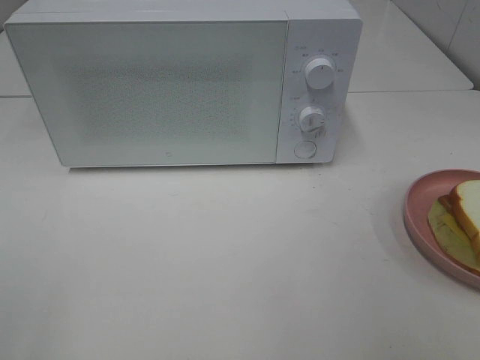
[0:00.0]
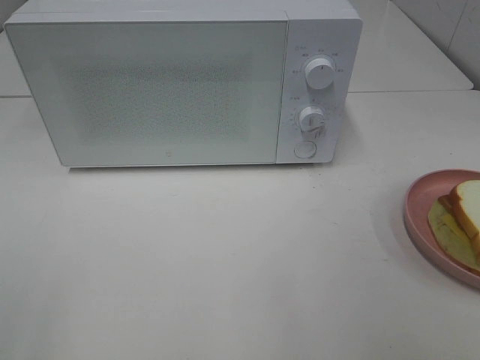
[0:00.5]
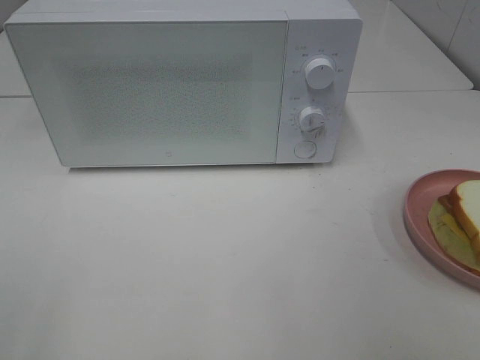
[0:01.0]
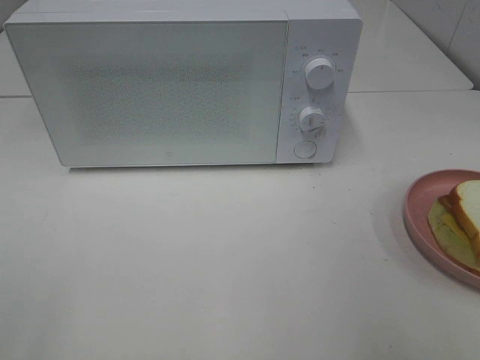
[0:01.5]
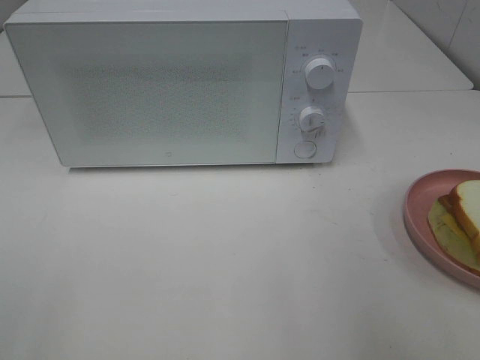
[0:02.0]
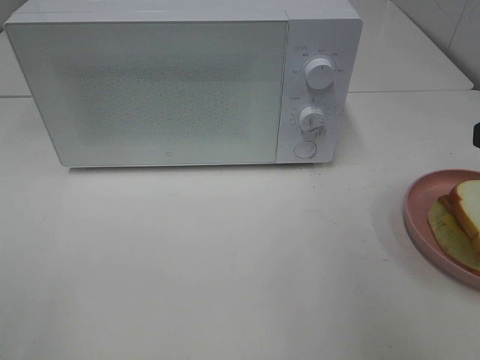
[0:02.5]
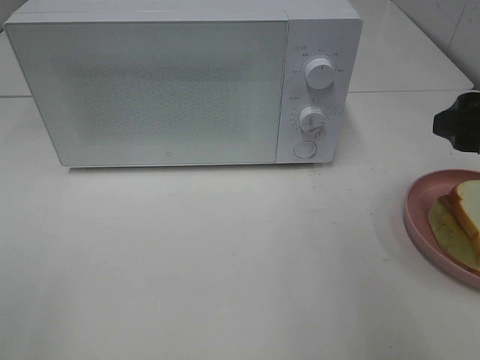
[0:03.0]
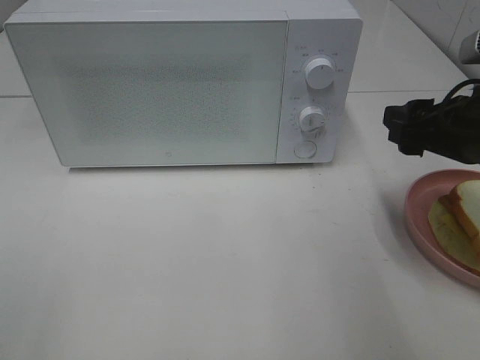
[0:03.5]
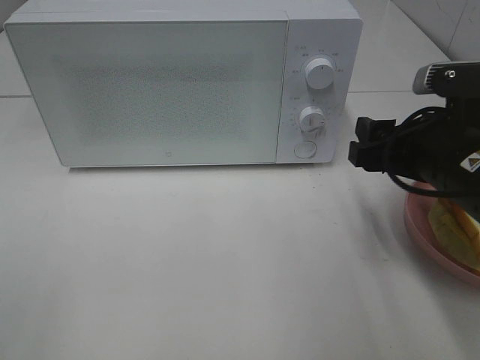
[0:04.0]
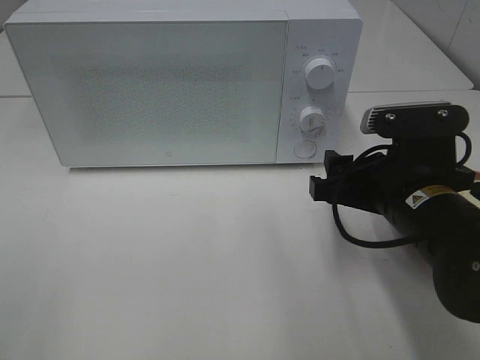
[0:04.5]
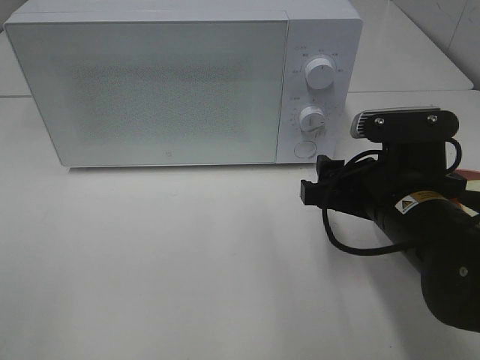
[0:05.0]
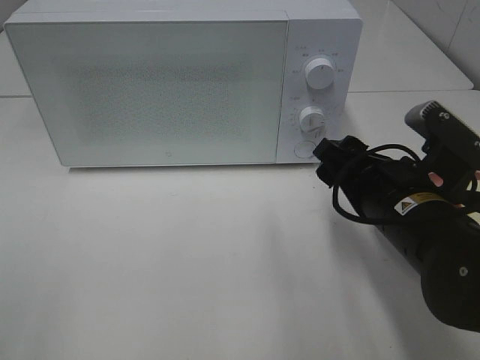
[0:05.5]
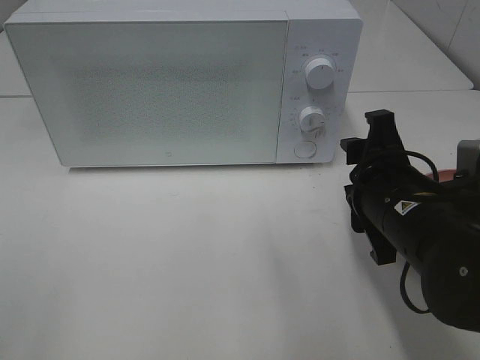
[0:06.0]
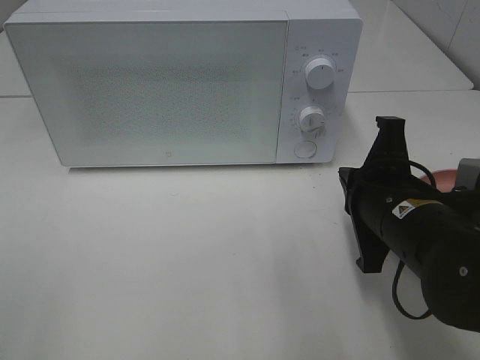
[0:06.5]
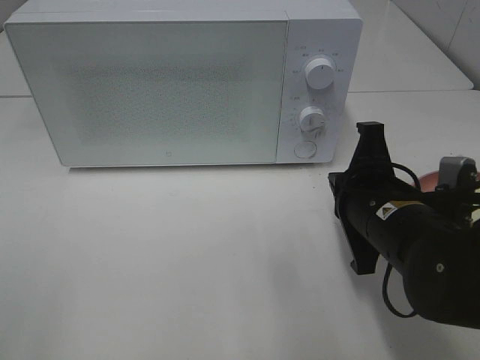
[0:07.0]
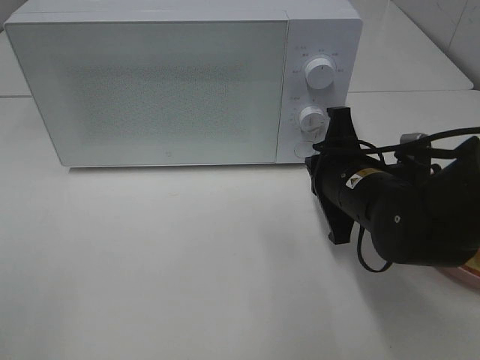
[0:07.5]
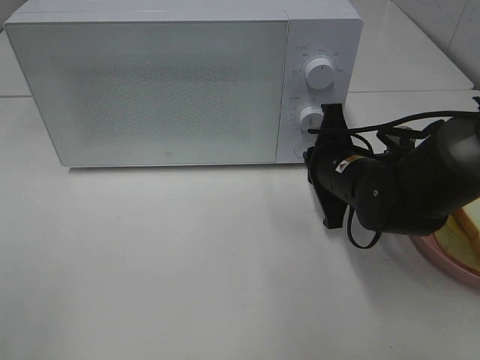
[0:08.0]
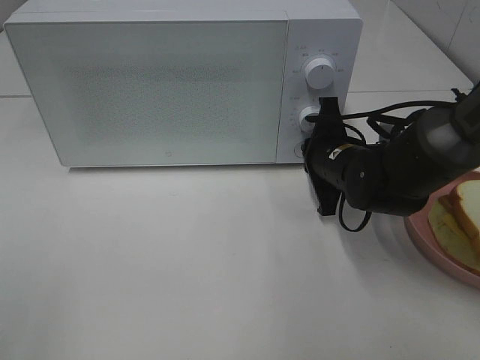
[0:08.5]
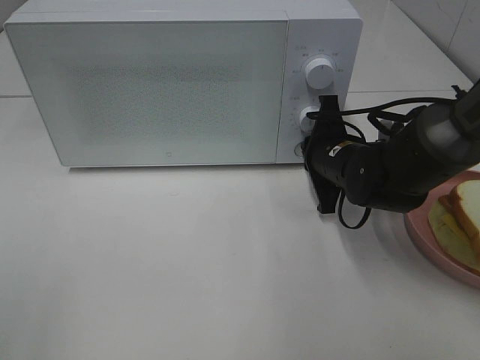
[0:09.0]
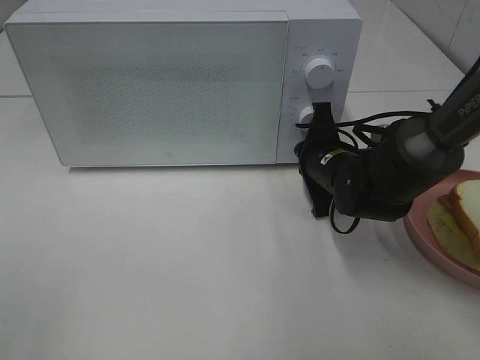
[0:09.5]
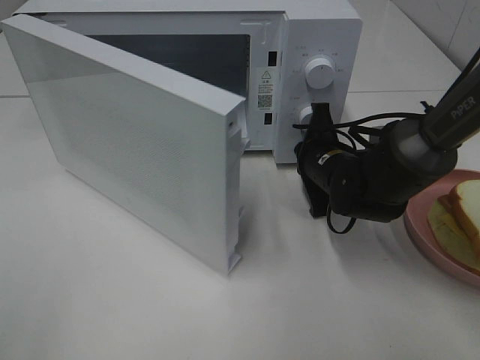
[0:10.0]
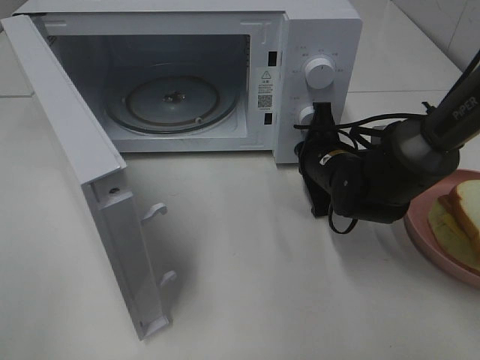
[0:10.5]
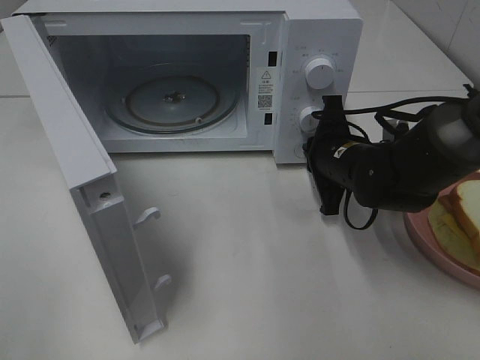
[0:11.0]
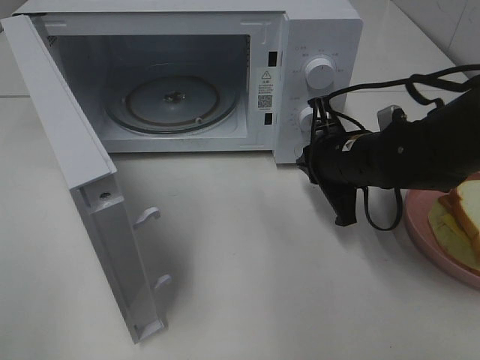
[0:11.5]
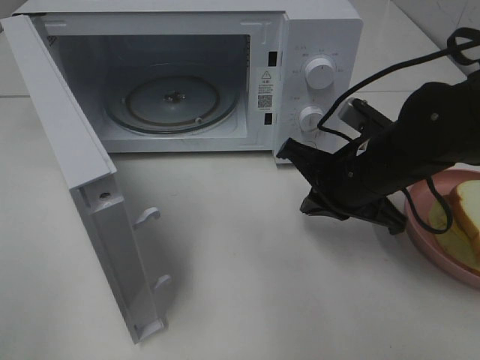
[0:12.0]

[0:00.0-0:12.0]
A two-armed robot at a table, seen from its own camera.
Task of the whole recording: Heat Sandwich.
Step, 0:00.0 to 0:11.0: Right hand: press the switch.
0:02.0 to 0:04.0: The right gripper goes roughly 15 cm downward, forward and to the left.
0:04.0 to 0:06.0: The right gripper shifts by roughly 5 cm.
0:06.0 to 0:08.0: The right gripper travels forward by approximately 10 cm, and closes.
0:10.0 to 0:12.0: The right gripper heads backward and upward, covering roughly 10 cm.

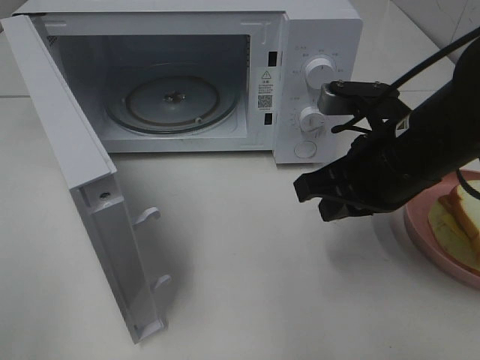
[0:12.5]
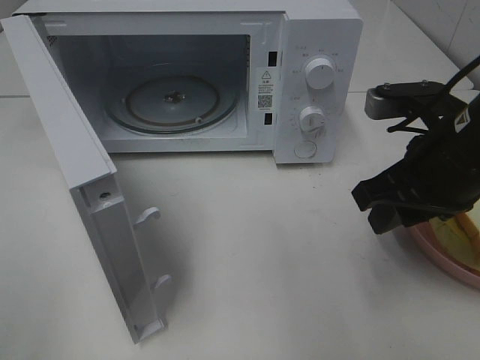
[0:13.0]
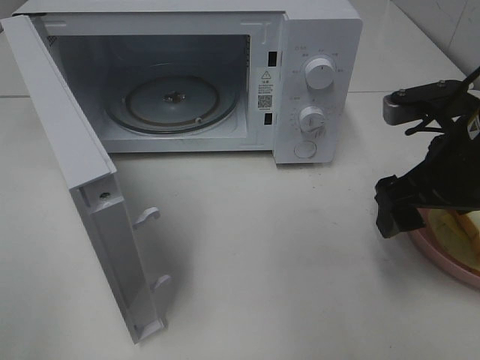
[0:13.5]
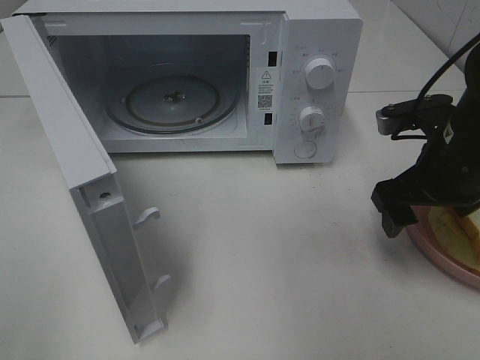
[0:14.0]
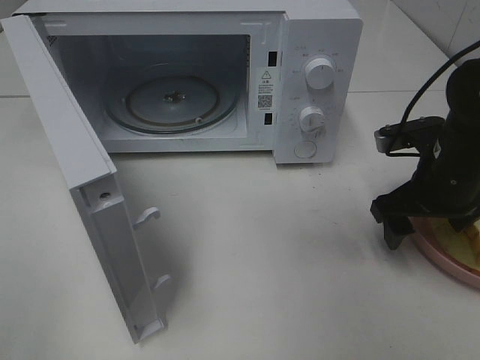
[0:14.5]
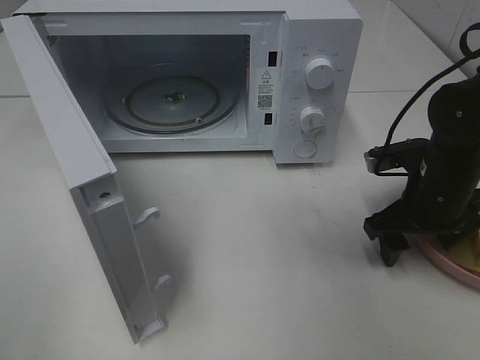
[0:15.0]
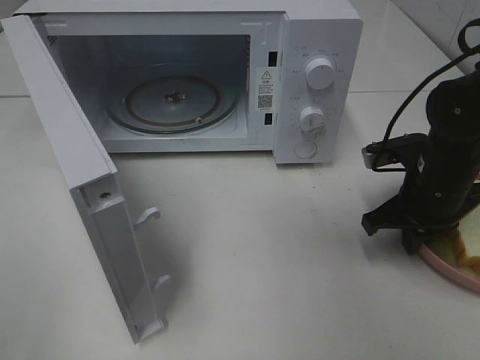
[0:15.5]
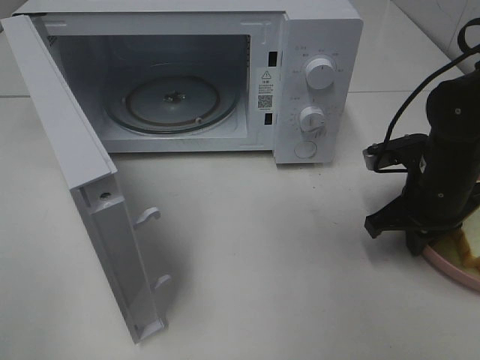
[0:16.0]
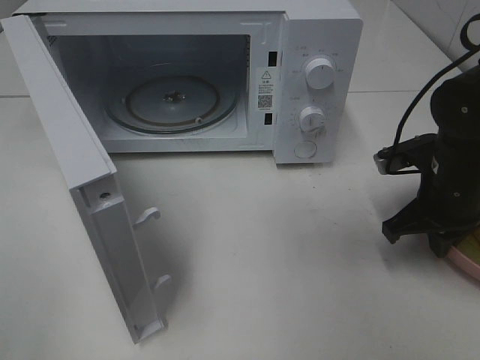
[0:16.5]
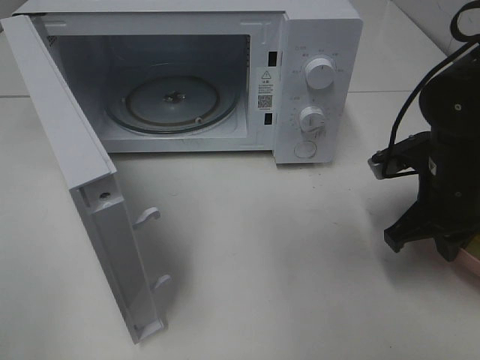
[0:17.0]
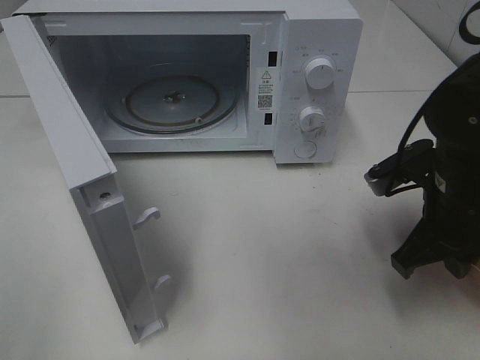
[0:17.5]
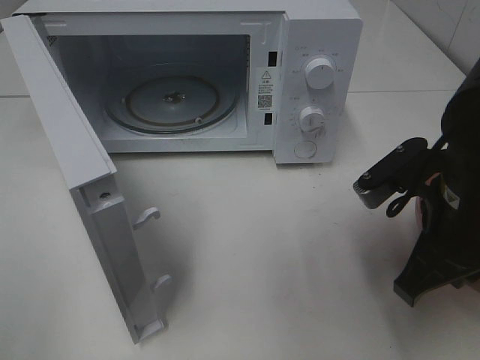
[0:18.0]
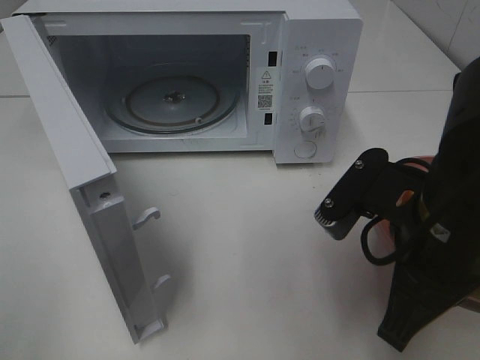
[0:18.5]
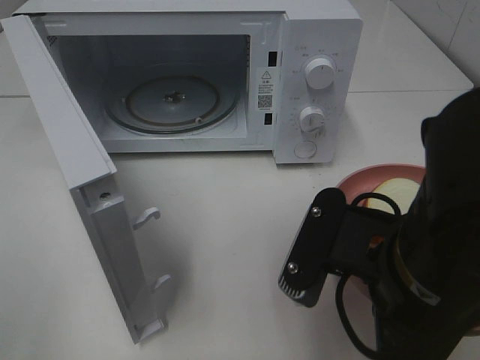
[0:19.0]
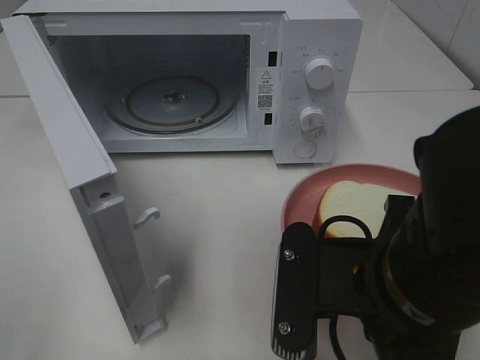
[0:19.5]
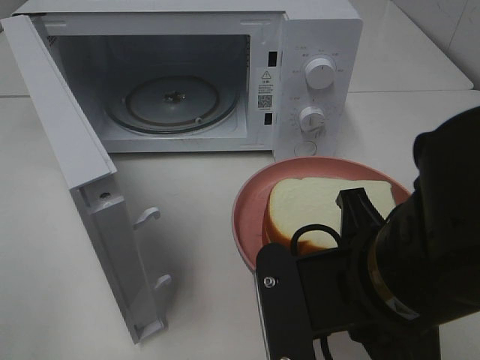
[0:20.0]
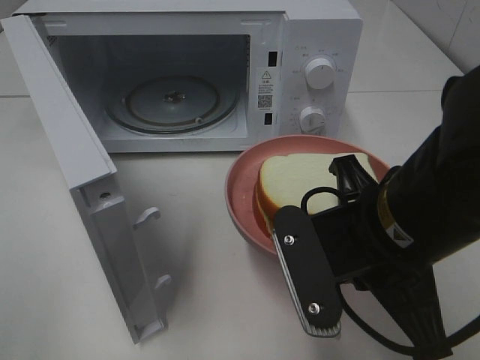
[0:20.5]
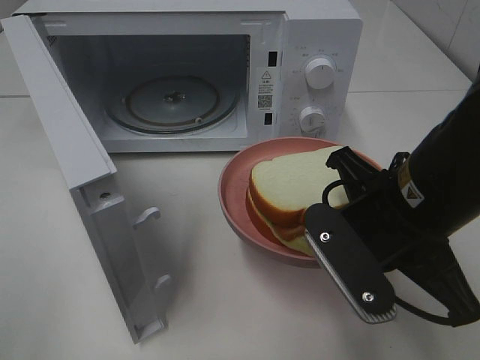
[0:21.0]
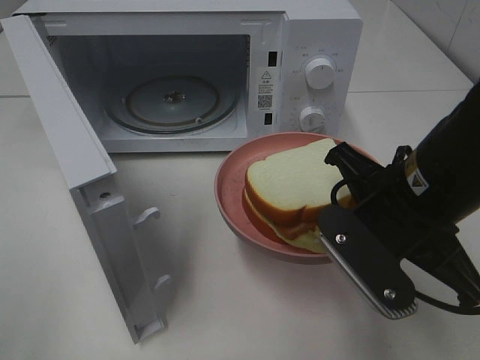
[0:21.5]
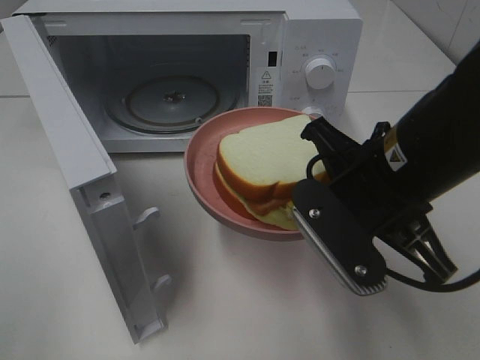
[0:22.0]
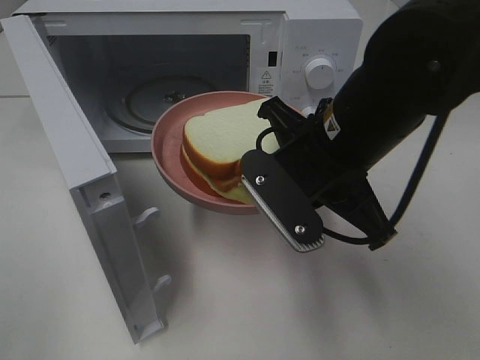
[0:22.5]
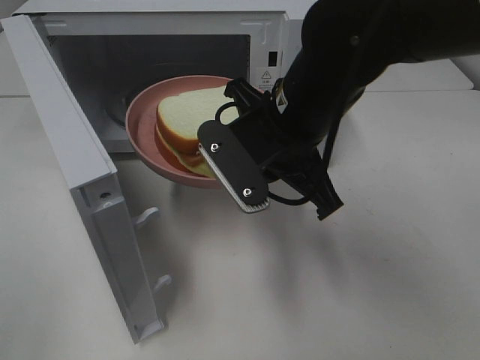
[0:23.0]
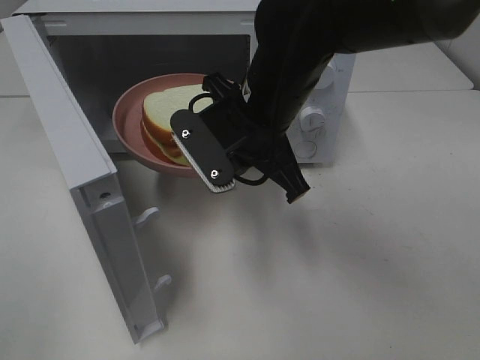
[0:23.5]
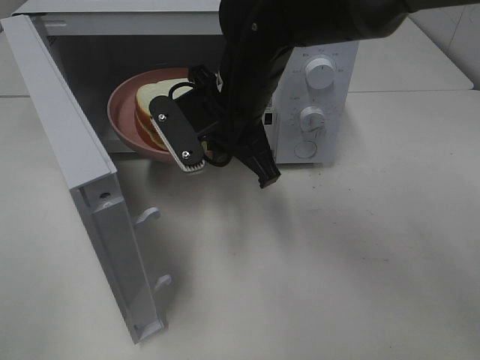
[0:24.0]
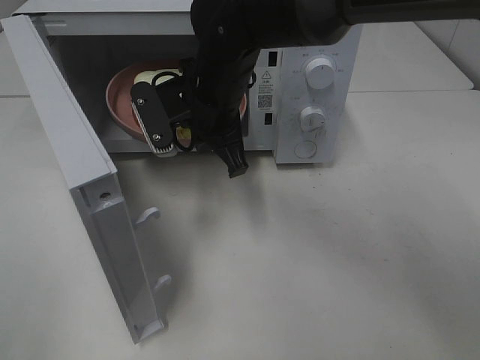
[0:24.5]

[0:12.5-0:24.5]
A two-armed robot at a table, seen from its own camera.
Task of the whole recording: Heat Sandwich.
Step, 0:12.5 to 0:16.5: Right hand: grab the plate with the sandwich.
0:12.5 to 0:14.5: The right gripper heads to the right and downward, covering some 10 cm, and opens up.
0:14.5 to 0:16.5: The right gripper closes up.
0:16.5 to 0:18.5: The right gripper goes approximately 20 cm backward, to the left and upward.
0:20.5 to 0:22.5: The right gripper moves forward, approximately 10 cm.
0:22.5 to 0:24.5: The right gripper shifts some 15 cm forward and to the left.

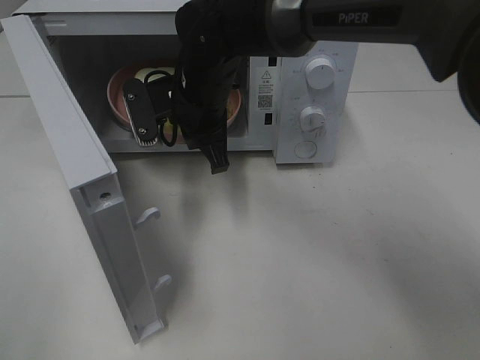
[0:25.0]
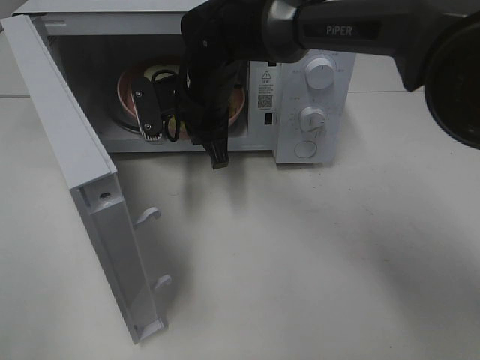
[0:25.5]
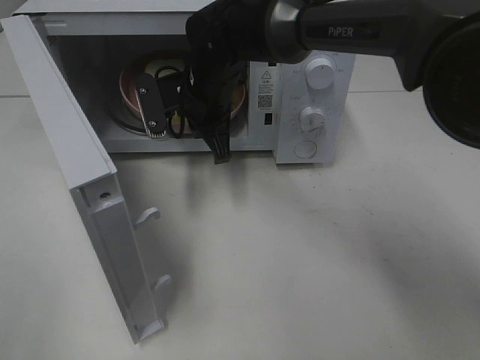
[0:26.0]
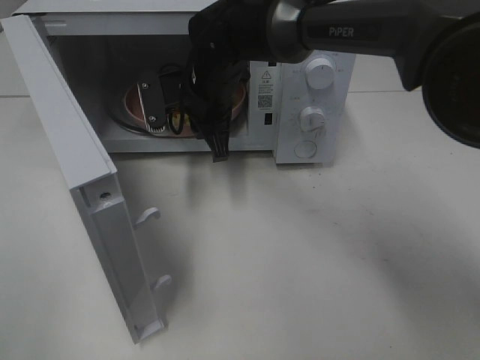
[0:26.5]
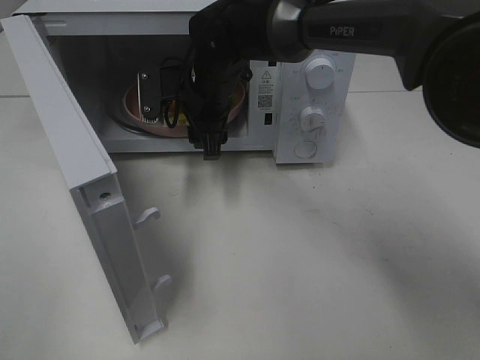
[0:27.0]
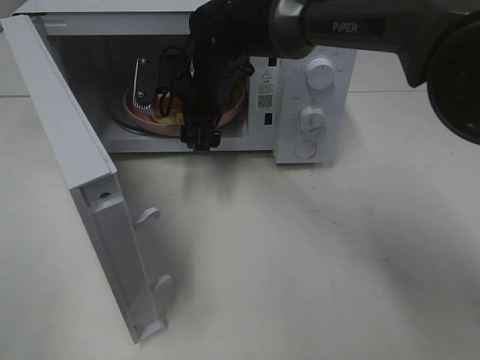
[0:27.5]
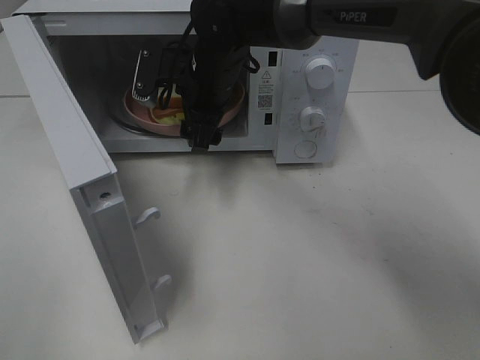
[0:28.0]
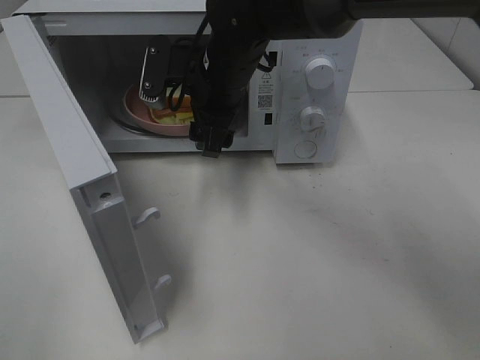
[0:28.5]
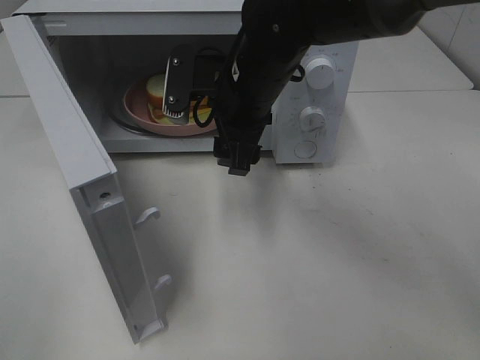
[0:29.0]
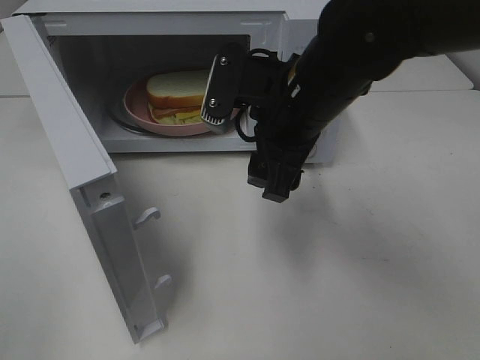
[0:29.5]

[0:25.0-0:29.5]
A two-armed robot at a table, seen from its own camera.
Task of the whole recording: Heat Sandwich.
Step, 0:25.0 to 0:28.5: Right hand: place the plate in the microwave.
0:25.0 to 0:27.0: The right gripper opens up.
0:27.0 to 0:29.5: The right gripper goes approximately 15 cm backward, to the right and upward.
